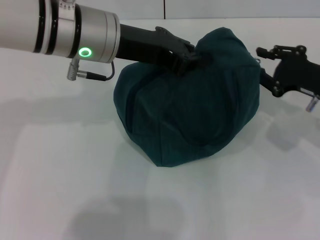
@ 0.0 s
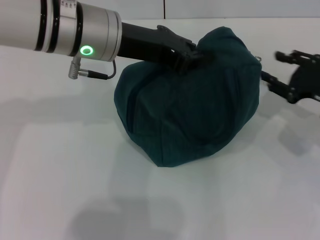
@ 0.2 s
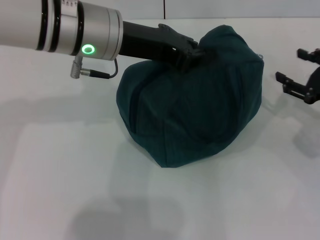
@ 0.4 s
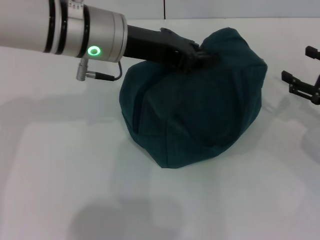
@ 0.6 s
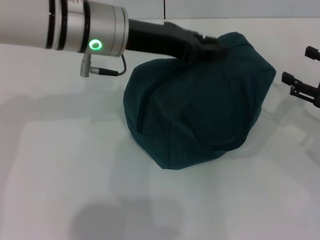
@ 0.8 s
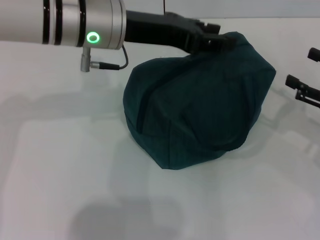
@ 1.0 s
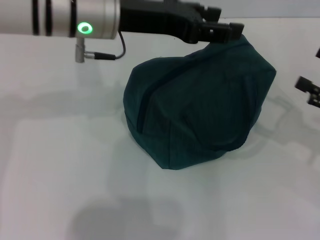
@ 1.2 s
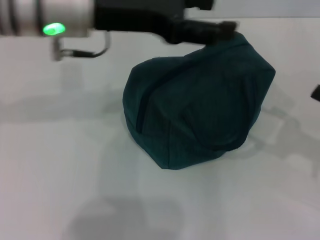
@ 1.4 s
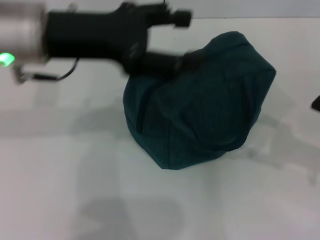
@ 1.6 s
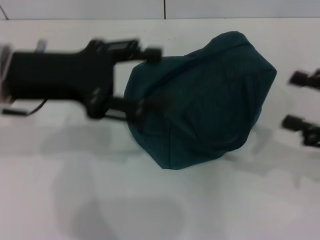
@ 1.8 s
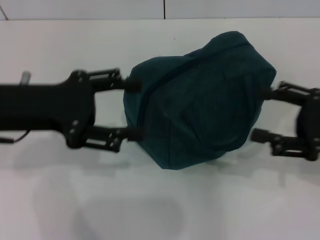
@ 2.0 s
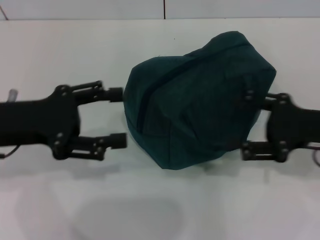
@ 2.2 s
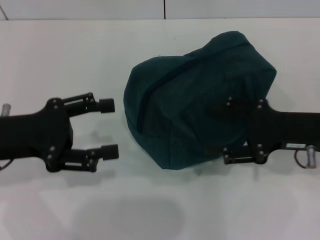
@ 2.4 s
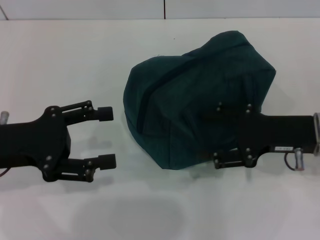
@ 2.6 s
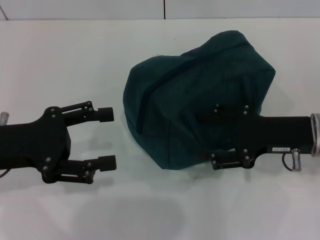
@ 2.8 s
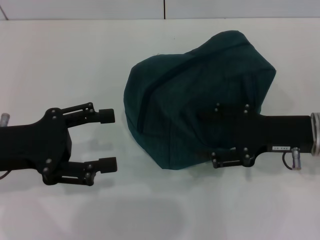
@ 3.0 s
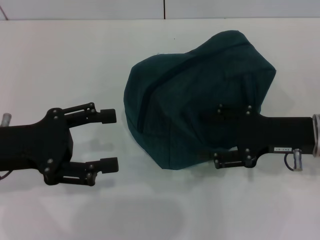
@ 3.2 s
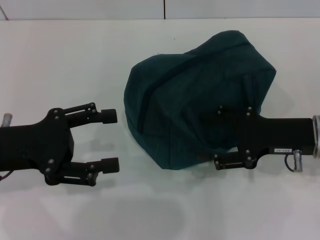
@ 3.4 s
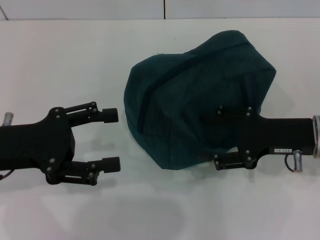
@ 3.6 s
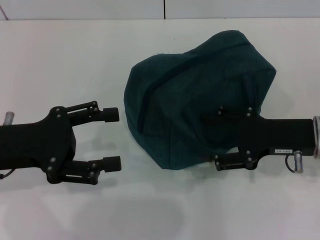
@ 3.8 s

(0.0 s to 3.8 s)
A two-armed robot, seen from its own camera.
Step, 0.2 s - 1.2 s: Hold the lunch bag with your left hand.
0.0 s - 1.2 s: The right gripper moves backward and to the right, roughly 10 cm, and opens. Meanwhile the left gripper opens its fingers.
1.2 s - 2.6 s: The right gripper is displaced to the left by roughly 10 cm; the left gripper goes approximately 20 cm to the left, backward and downward, and opens.
2.6 s - 3.8 s: The two grippers keep their place.
